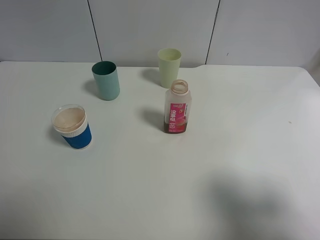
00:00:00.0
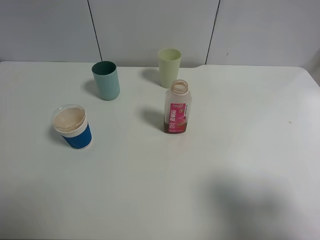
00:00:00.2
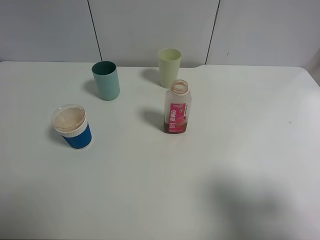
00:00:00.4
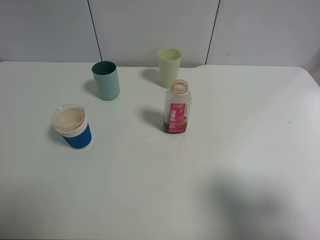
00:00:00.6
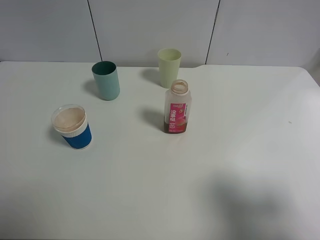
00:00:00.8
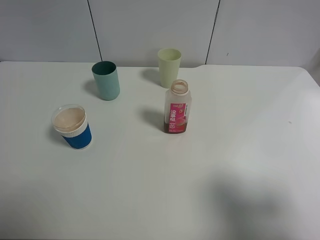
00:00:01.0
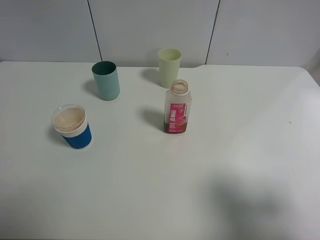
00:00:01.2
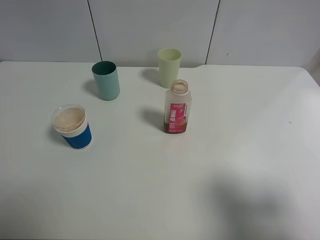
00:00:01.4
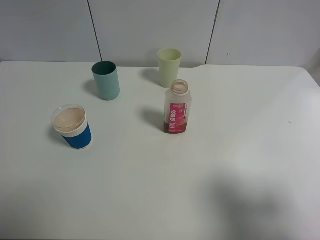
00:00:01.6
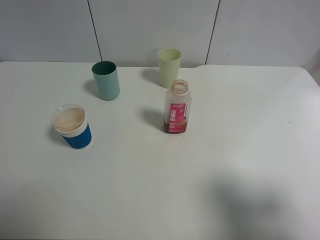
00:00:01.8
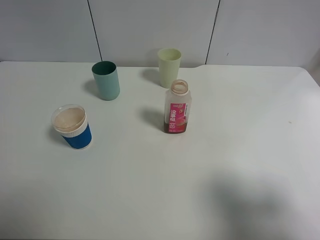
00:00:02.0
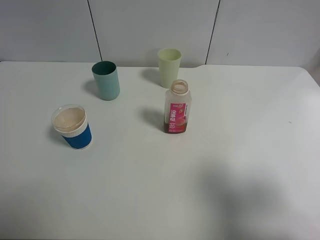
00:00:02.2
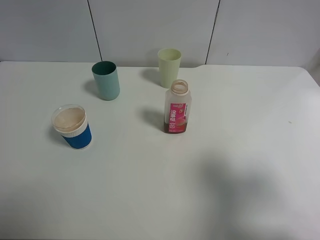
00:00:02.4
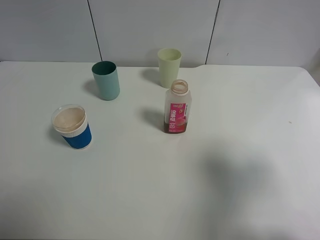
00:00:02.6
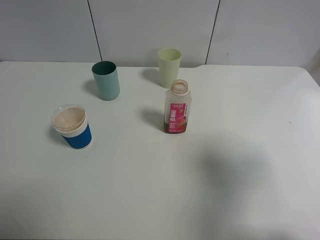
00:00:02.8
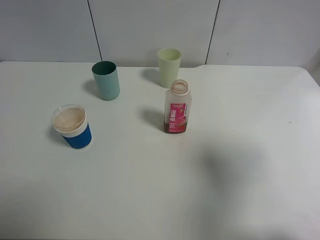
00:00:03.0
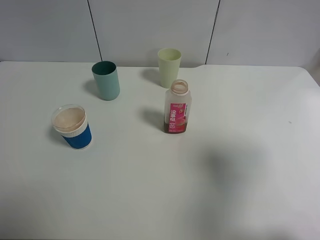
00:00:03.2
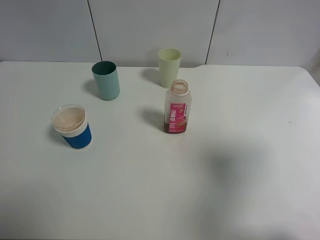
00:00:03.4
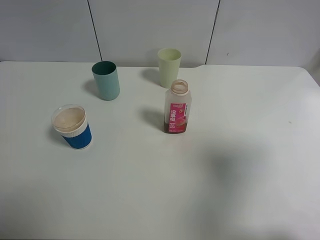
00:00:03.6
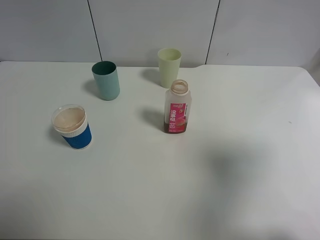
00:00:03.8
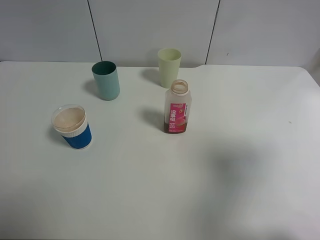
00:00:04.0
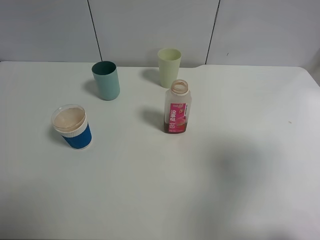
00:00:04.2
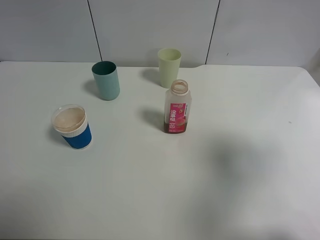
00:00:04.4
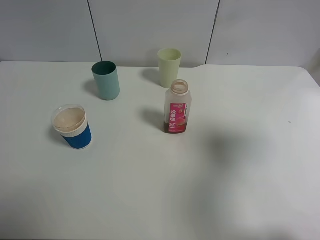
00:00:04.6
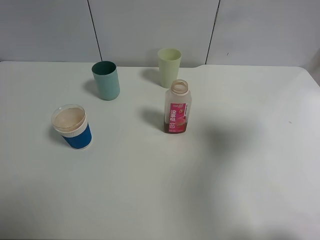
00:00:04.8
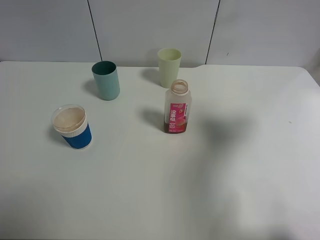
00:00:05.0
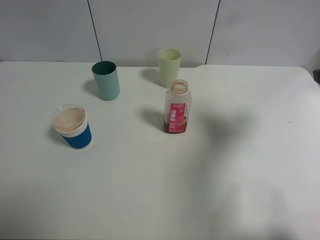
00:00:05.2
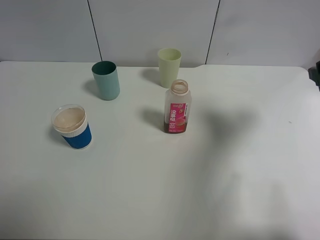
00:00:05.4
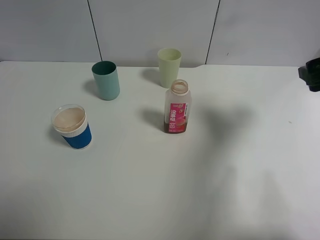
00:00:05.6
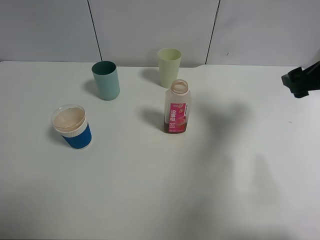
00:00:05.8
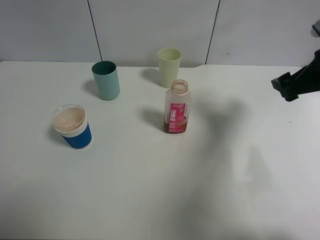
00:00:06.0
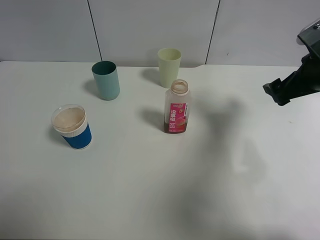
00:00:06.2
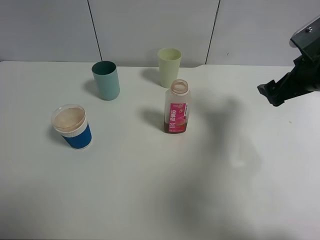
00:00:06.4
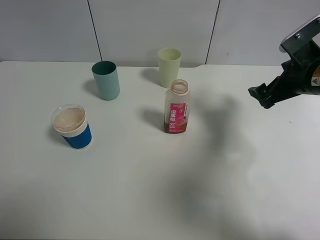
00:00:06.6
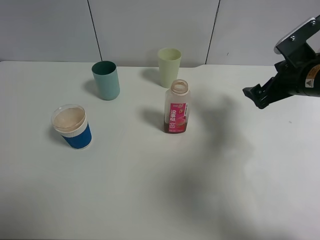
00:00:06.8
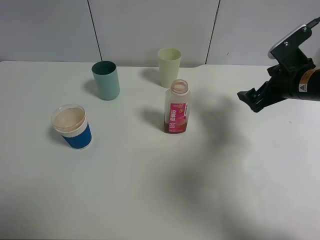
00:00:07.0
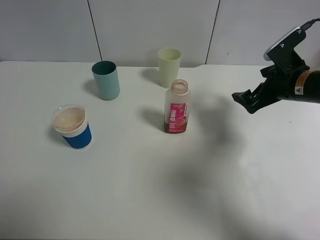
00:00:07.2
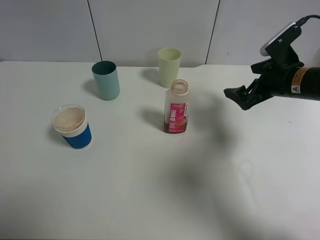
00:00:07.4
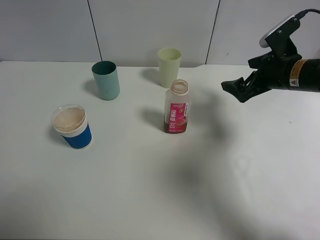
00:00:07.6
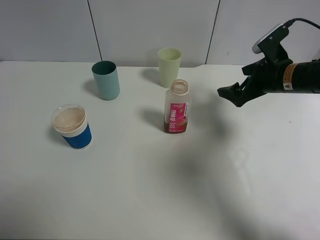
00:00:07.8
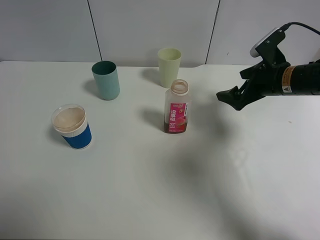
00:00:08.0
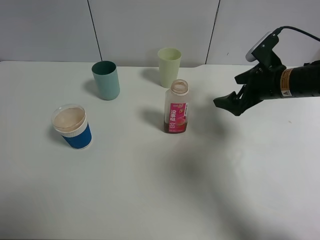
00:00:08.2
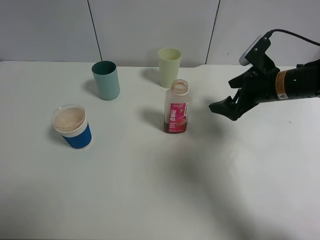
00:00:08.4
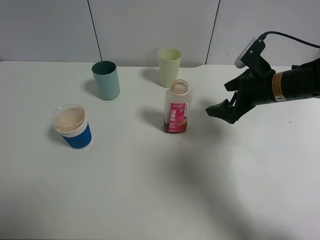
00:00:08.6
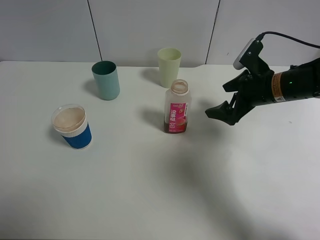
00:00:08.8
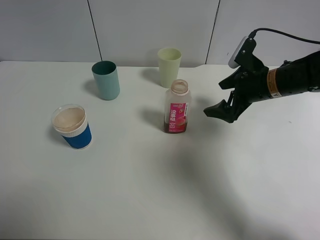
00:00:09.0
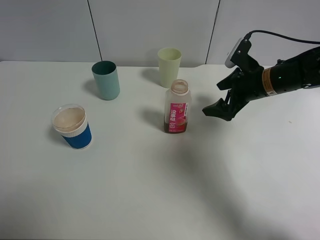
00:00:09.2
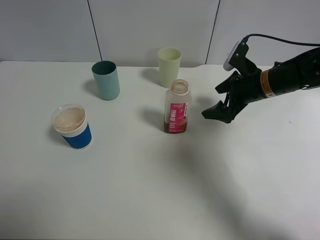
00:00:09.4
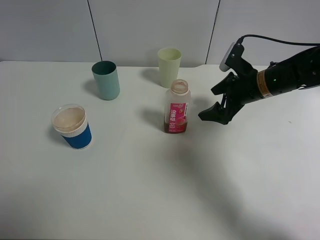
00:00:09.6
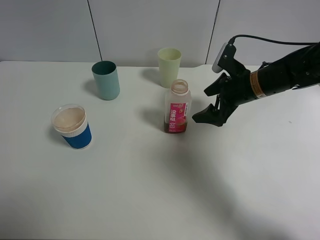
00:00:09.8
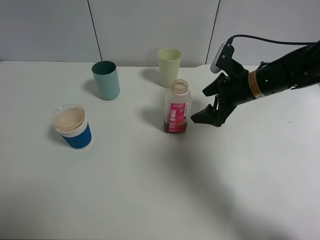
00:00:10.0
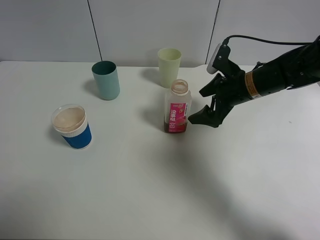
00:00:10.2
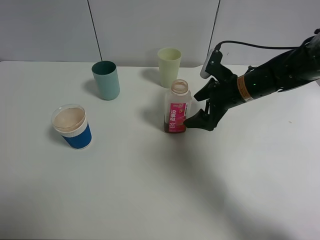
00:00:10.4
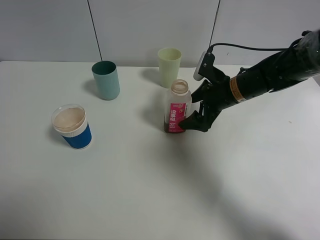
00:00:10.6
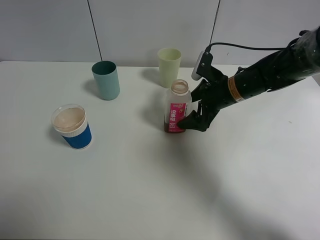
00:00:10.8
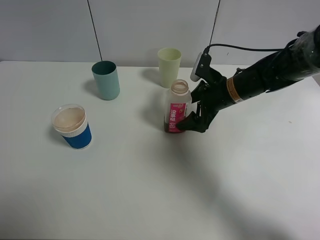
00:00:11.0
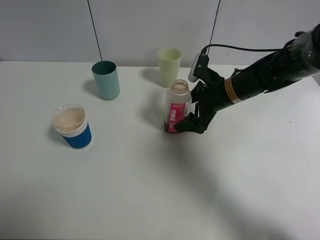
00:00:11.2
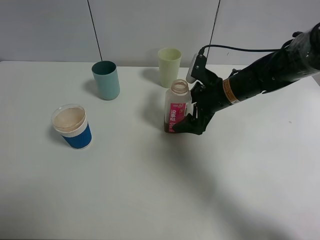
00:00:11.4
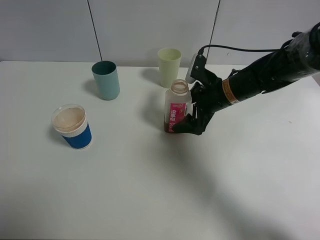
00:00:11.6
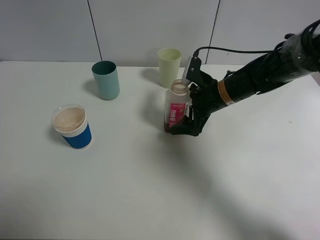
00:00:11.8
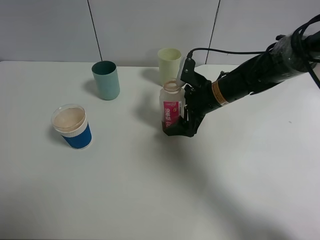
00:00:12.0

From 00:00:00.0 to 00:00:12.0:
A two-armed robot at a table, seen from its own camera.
Task of the whole recording: use a clamp to hold the bottle of the drink, pour the beverage into a random cup, then clamp the cup containing the drink and pour the drink into another random cup.
From 00:00:00.0 to 00:00:01.6: The two grippers keep their place.
From 00:00:01.6 to 00:00:03.0: The right gripper is displaced forward by roughly 5 cm.
From 00:00:04.4 to 00:00:06.0: The right gripper moves forward and downward, roughly 20 cm.
From 00:00:06.0 to 00:00:07.6: The right gripper travels forward by about 5 cm.
From 00:00:09.0 to 00:00:10.4: The right gripper heads to the left, covering about 5 cm.
From 00:00:10.4 to 00:00:12.0: There are only small adjustments of the grippers.

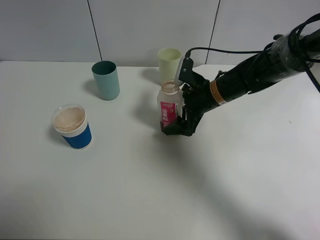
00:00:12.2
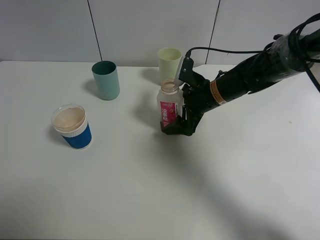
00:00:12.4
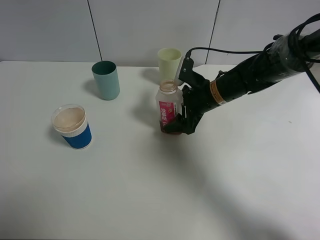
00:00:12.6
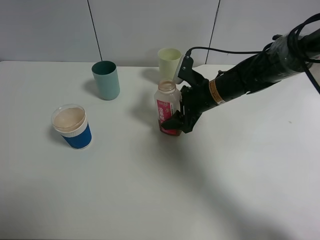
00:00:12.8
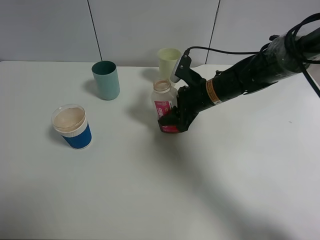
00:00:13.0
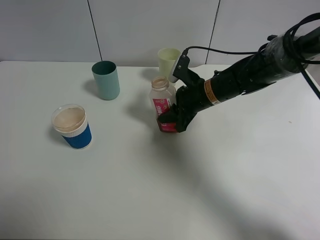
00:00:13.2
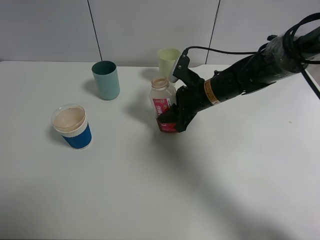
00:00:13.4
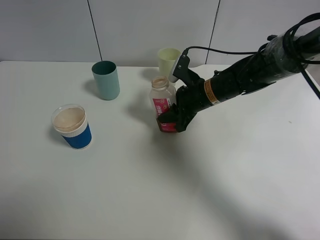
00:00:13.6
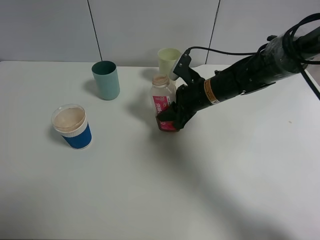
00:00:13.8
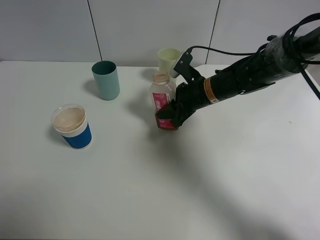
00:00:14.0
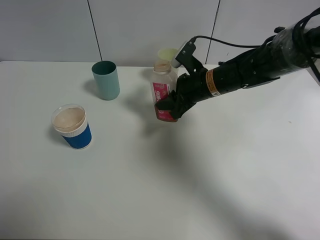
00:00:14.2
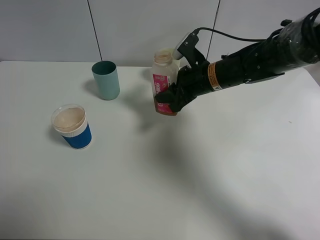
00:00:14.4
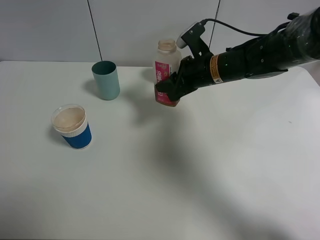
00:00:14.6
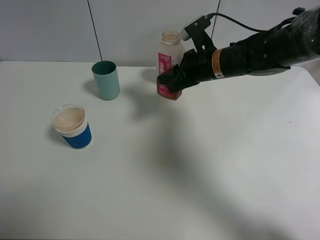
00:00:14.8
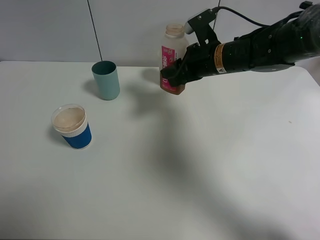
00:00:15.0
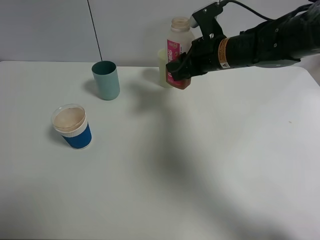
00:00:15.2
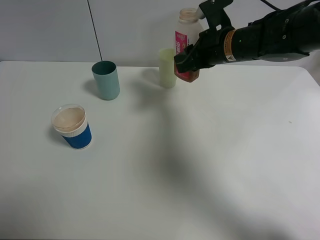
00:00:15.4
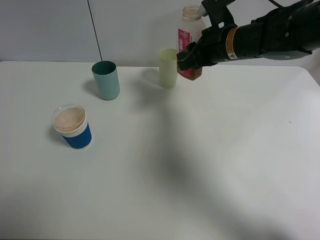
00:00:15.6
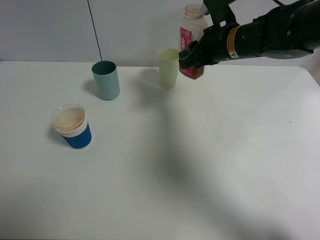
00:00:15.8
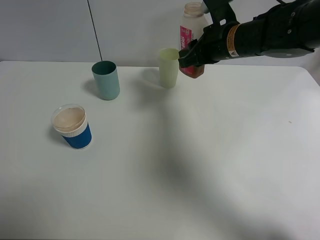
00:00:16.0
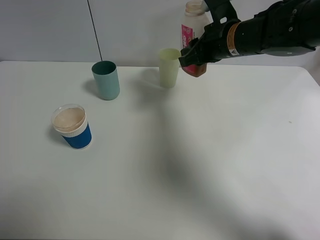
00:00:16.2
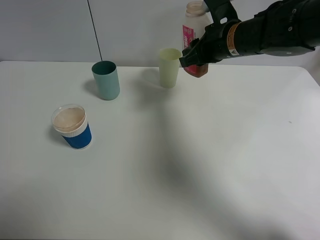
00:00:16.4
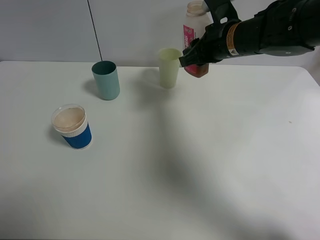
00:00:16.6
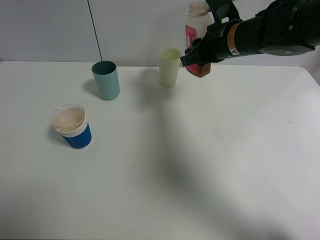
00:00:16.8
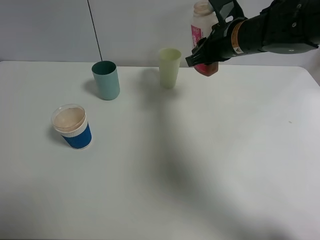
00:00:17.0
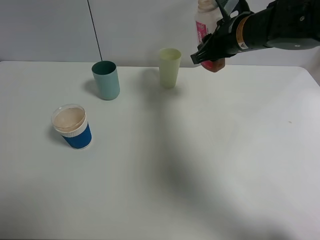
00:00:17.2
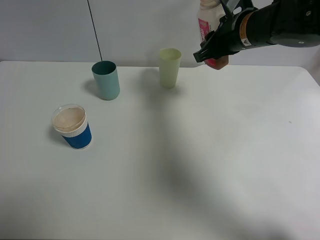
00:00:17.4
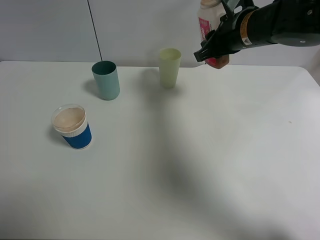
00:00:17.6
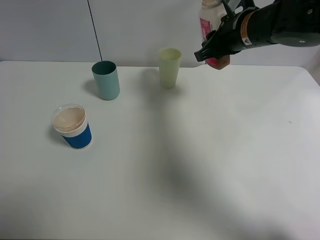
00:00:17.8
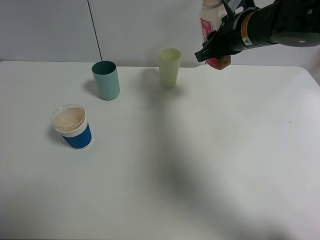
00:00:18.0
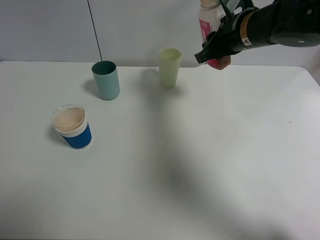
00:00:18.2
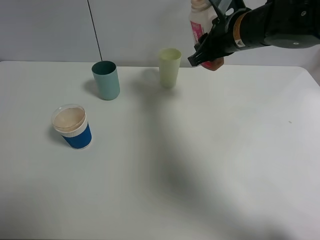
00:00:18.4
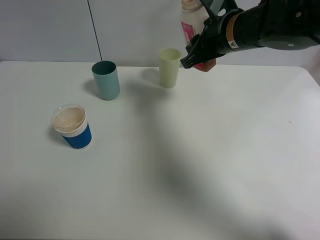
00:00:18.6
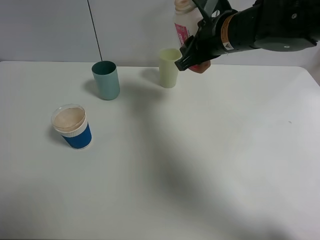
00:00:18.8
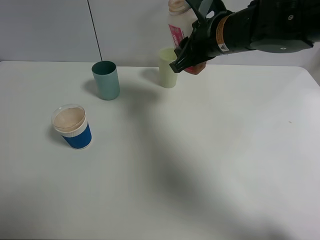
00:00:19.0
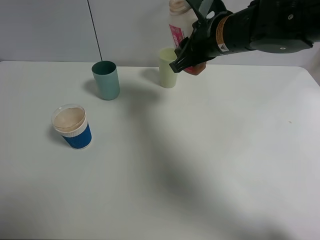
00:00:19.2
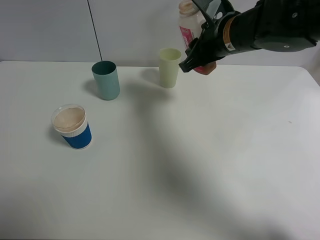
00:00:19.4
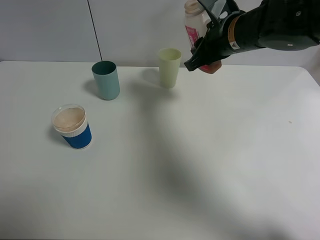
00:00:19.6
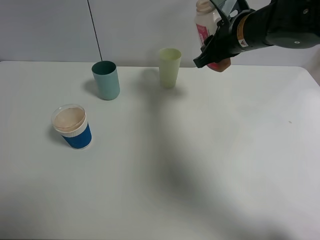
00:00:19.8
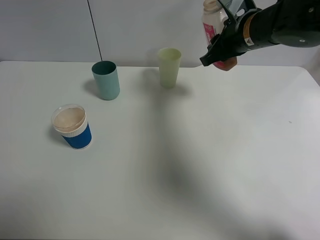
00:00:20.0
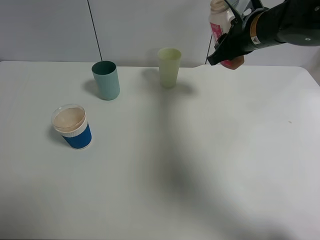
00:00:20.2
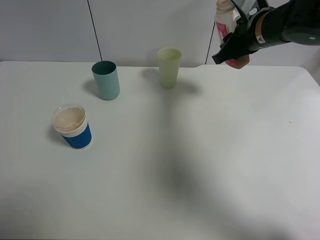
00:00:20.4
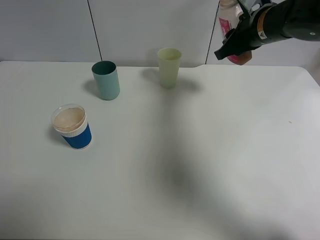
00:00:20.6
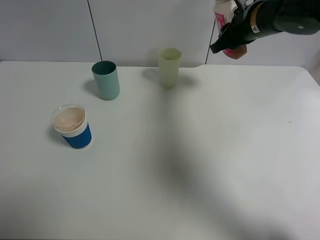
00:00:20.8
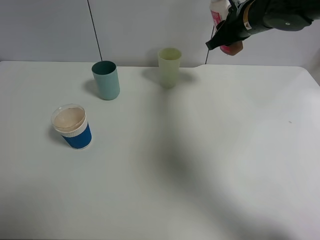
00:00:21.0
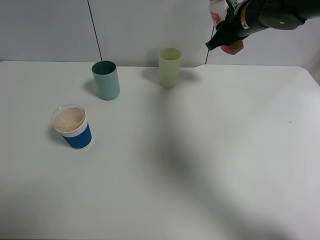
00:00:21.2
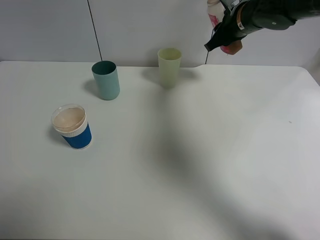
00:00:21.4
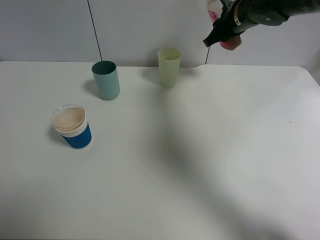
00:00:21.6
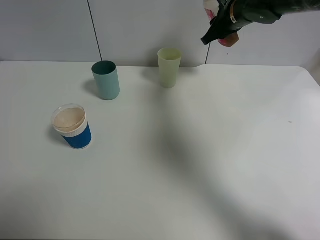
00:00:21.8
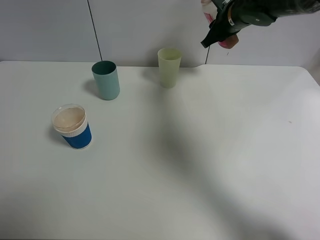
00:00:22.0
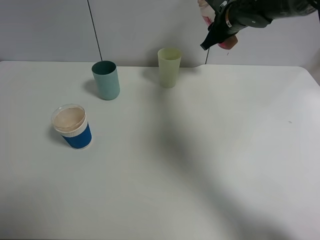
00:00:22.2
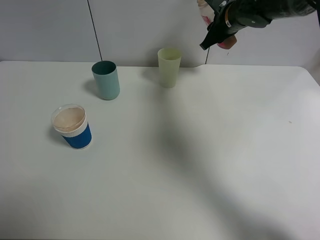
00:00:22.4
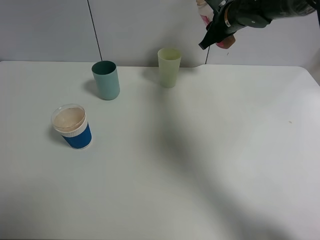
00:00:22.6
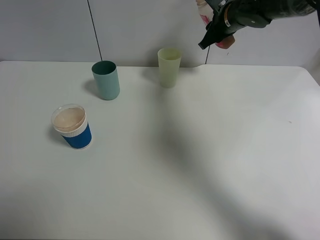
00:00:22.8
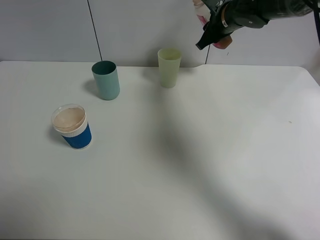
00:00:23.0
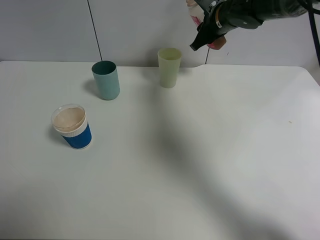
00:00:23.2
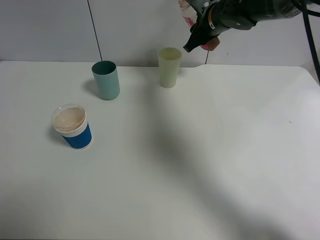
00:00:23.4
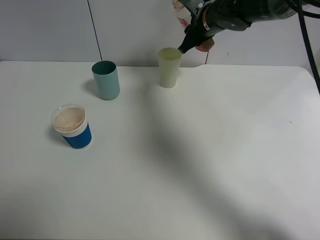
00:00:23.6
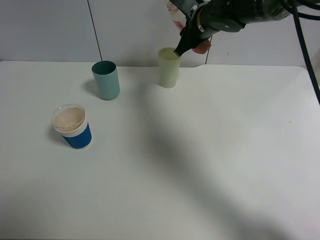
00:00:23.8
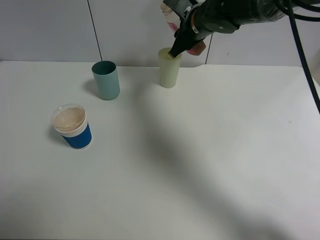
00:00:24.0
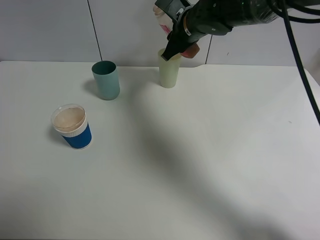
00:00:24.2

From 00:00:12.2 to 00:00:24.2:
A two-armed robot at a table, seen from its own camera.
Task of the whole recording: use a clamp to hold the bottle of the drink, pour the beverage into a random cup, then clamp the cup containing the drink and pour the drink into another random cup.
From 00:00:12.2 to 00:00:13.8: The right gripper closes up.
From 00:00:13.8 to 00:00:15.2: The right gripper goes approximately 10 cm upward.
From 00:00:15.2 to 00:00:16.6: The grippers move only a little.
From 00:00:16.6 to 00:00:19.8: The grippers move only a little.
From 00:00:19.8 to 00:00:21.2: The right gripper travels forward by roughly 5 cm.
From 00:00:21.2 to 00:00:22.6: The right gripper travels forward by about 5 cm.
From 00:00:22.6 to 00:00:24.2: The right gripper goes some 10 cm to the left.
